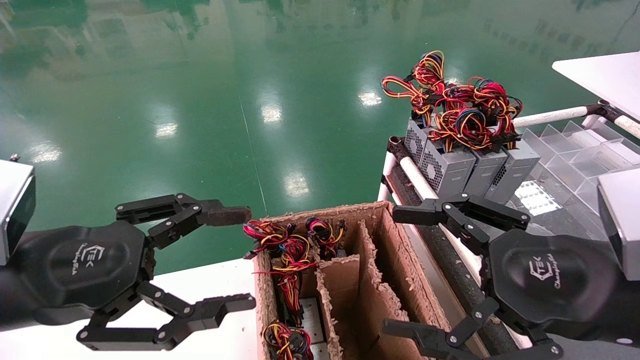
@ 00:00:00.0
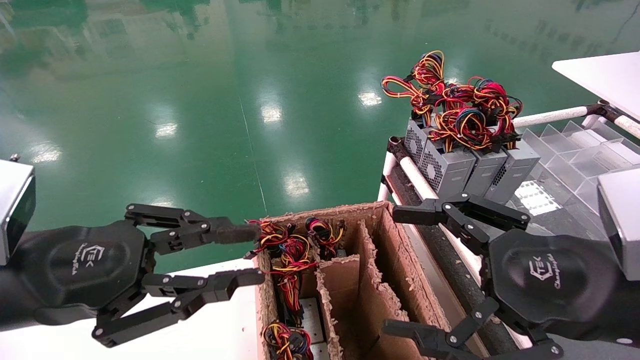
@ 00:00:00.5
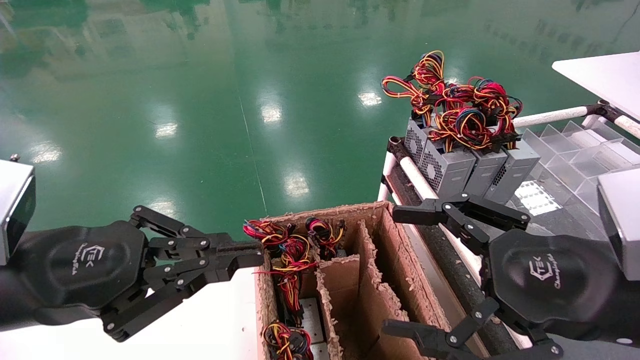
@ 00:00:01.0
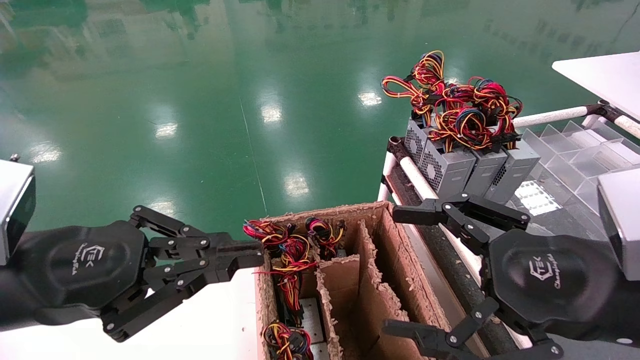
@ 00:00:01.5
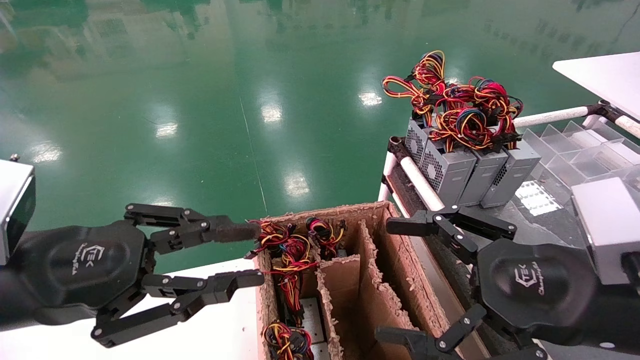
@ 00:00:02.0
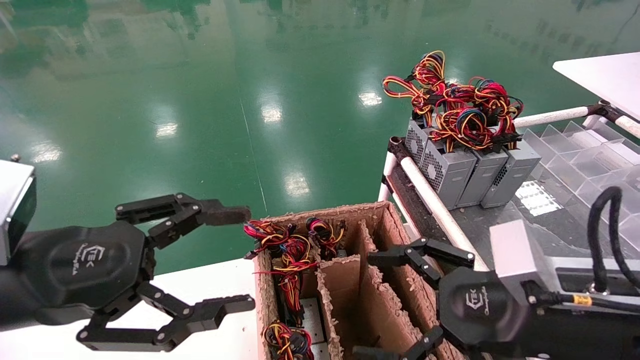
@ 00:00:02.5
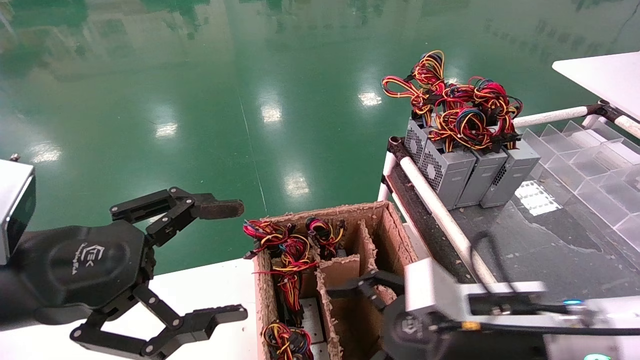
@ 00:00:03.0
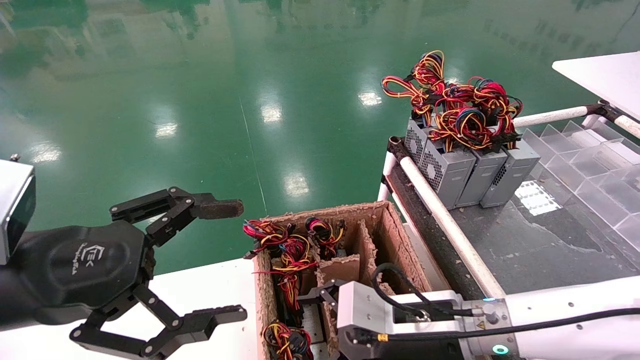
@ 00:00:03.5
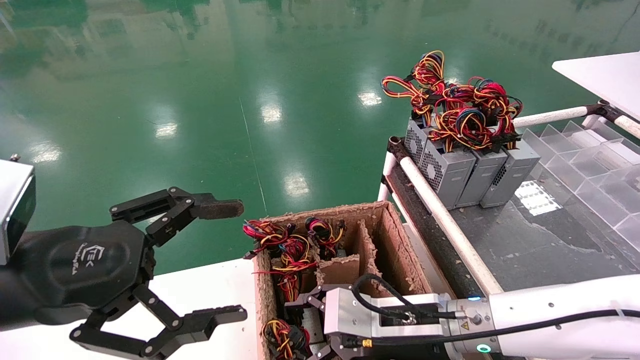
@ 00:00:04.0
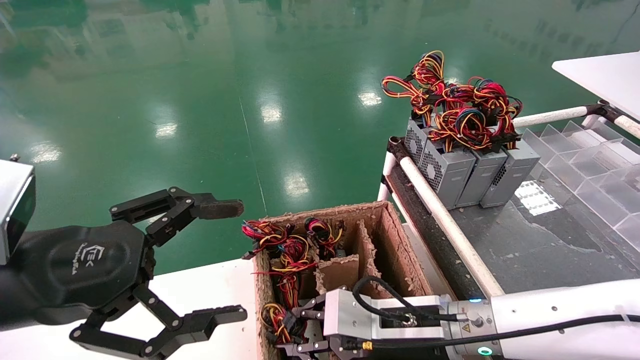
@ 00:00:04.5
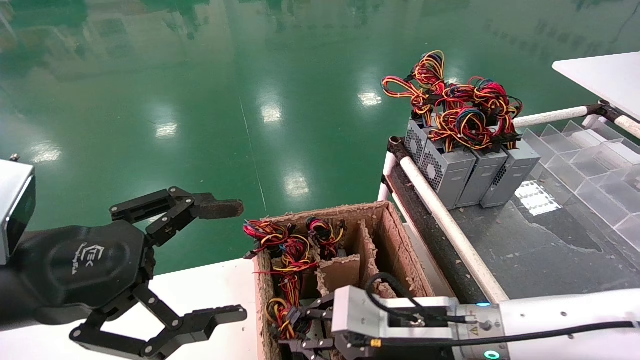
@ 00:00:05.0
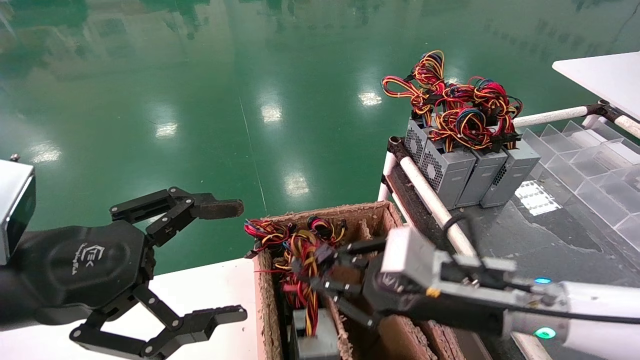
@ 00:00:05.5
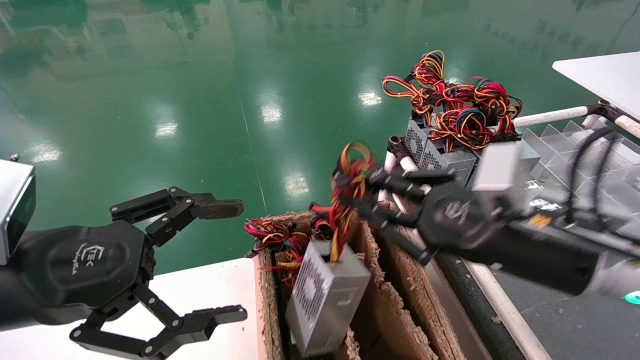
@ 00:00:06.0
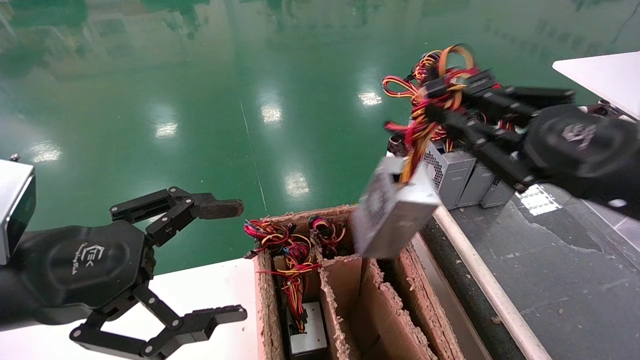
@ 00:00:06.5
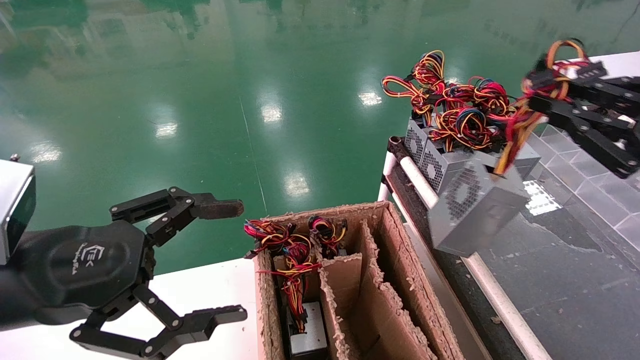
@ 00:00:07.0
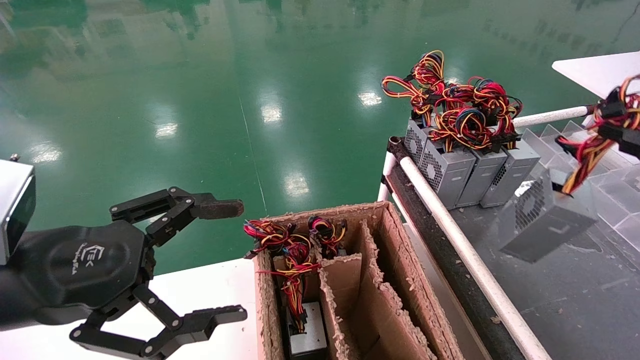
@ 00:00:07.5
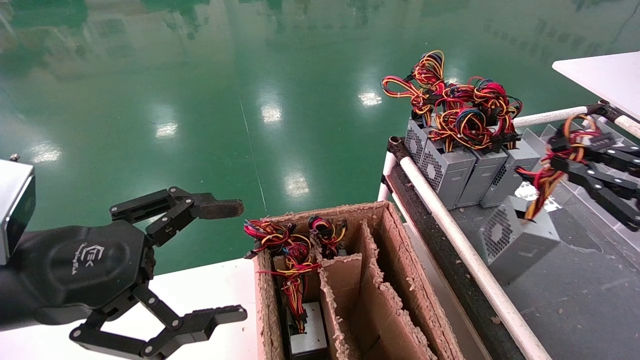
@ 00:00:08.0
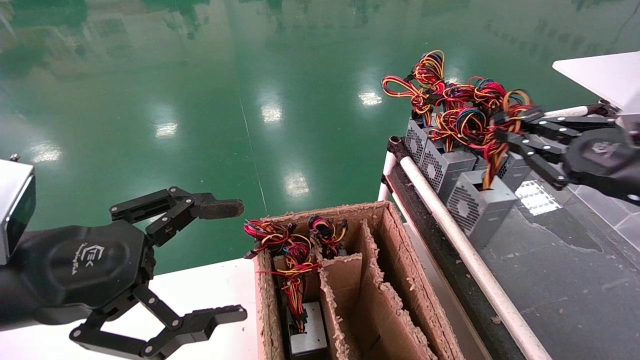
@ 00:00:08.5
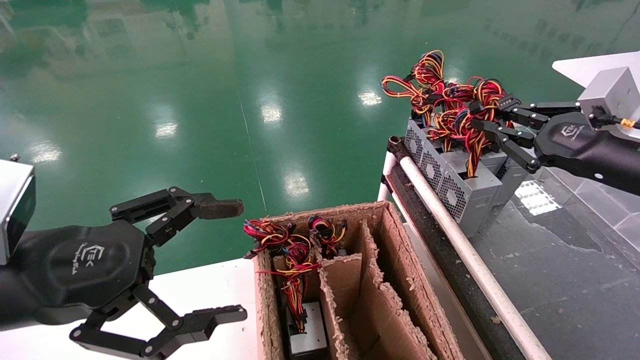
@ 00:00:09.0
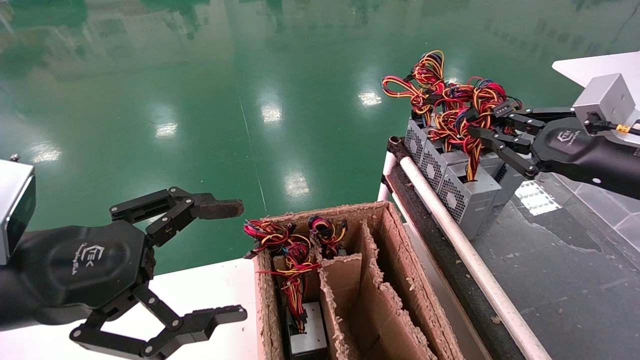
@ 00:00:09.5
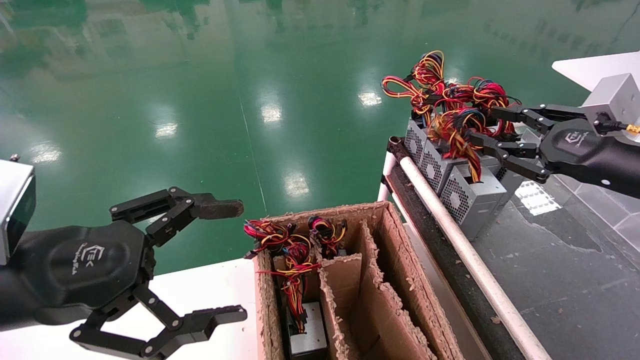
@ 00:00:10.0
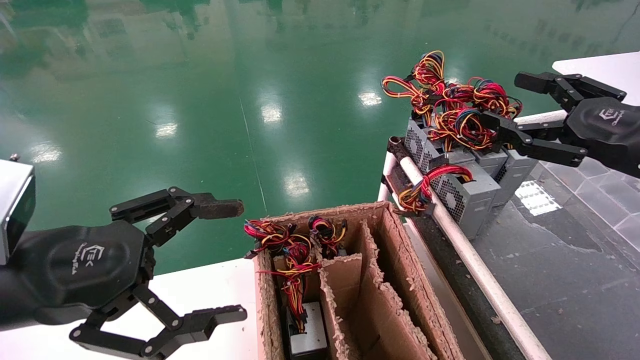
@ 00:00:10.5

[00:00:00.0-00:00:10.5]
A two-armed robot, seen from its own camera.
Step, 00:00:01.5 to 00:00:04.5: Grab and lift the power supply from the large box.
Step, 00:00:05.0 to 00:00:09.5: Place the power supply on the operating table.
00:00:00.0 to 00:00:02.0: The left gripper closes its fingers.
00:00:02.0 to 00:00:04.0: The left gripper opens its fingers. Meanwhile the right gripper is displaced to the left, downward and forward by some 20 cm.
00:00:04.0 to 00:00:06.5: The right gripper travels upward and to the right by roughly 25 cm, and closes.
00:00:06.5 to 00:00:08.5: The right gripper is displaced to the right and forward by some 10 cm.
00:00:08.5 to 00:00:10.5: The right gripper opens its fingers.

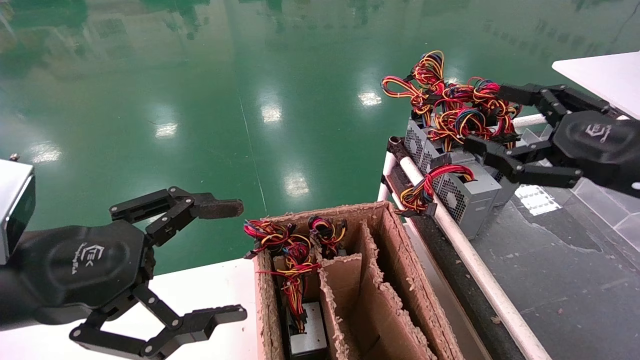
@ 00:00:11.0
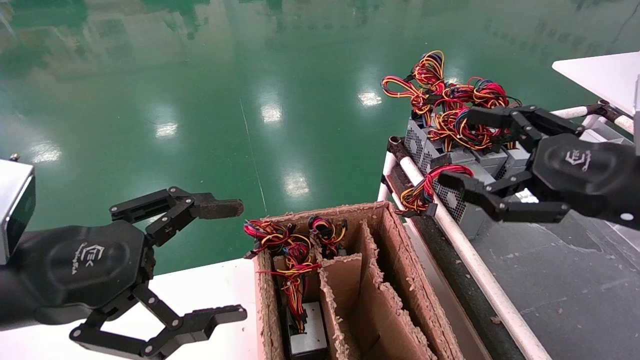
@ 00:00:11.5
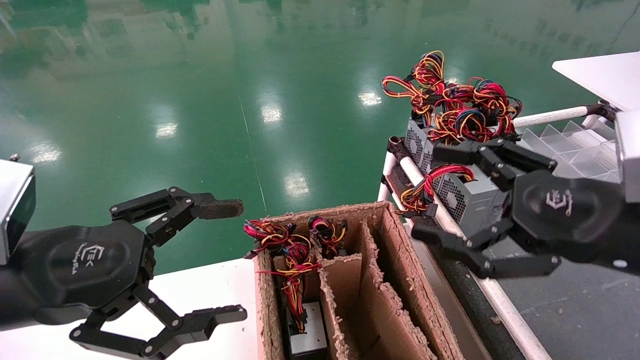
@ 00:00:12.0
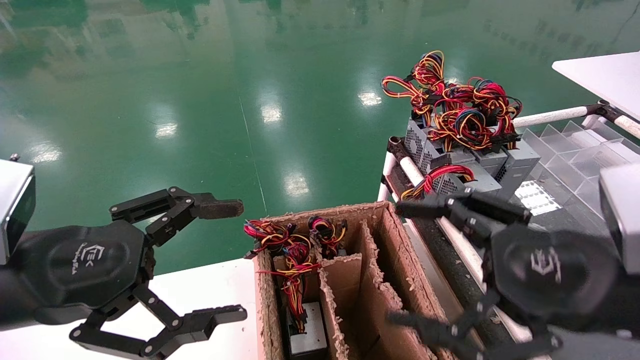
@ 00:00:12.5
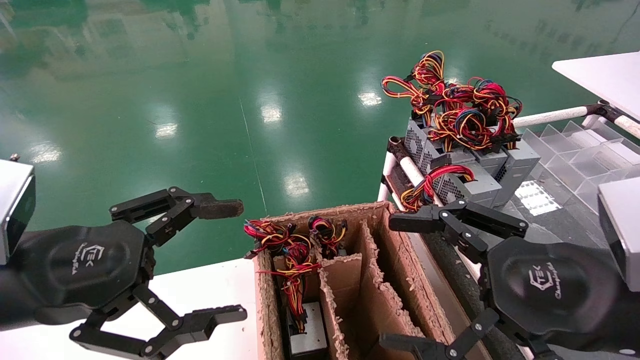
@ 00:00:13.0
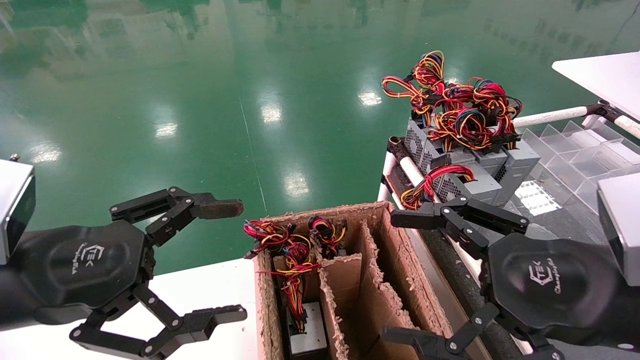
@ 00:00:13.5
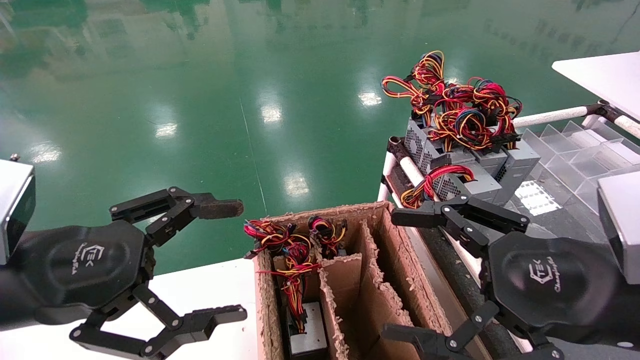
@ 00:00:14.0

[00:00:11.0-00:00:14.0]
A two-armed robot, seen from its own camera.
00:00:11.0 to 00:00:12.5: The right gripper goes roughly 10 cm to the left and backward.
00:00:12.5 to 00:00:14.0: Both grippers stay about where they are.
